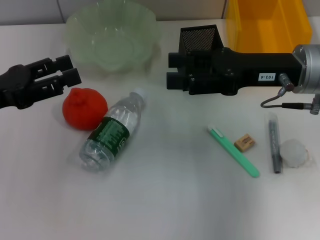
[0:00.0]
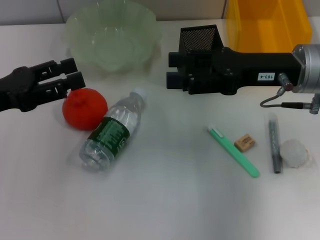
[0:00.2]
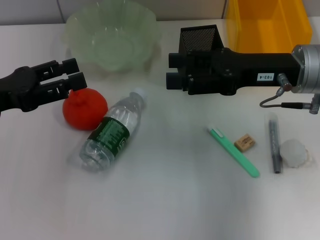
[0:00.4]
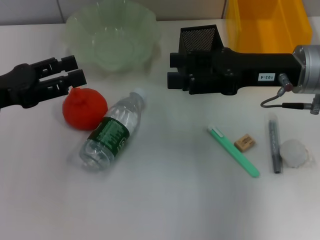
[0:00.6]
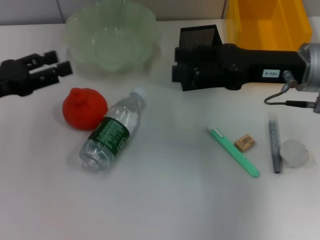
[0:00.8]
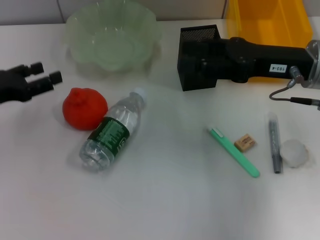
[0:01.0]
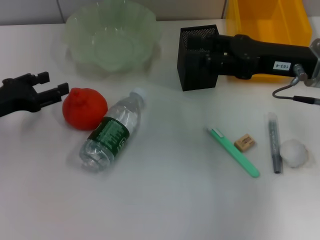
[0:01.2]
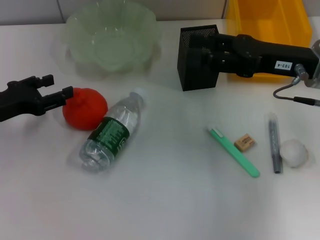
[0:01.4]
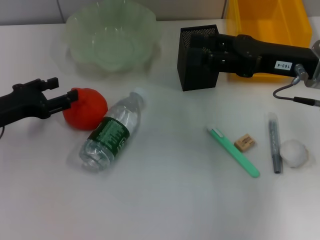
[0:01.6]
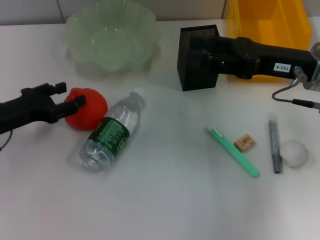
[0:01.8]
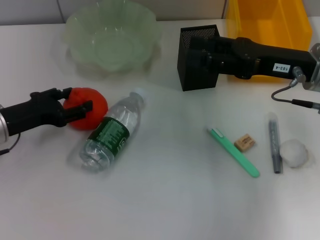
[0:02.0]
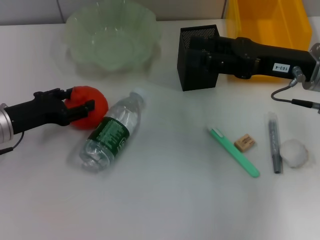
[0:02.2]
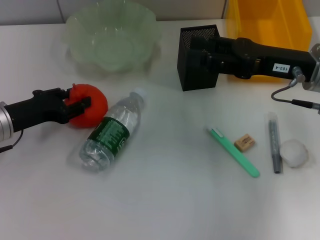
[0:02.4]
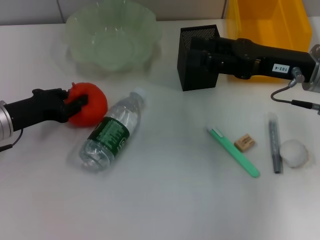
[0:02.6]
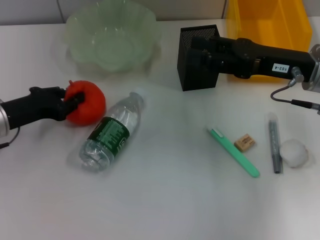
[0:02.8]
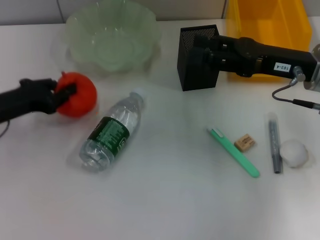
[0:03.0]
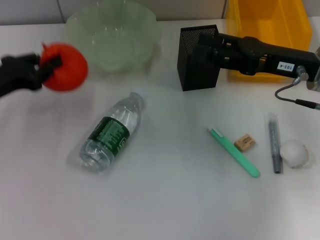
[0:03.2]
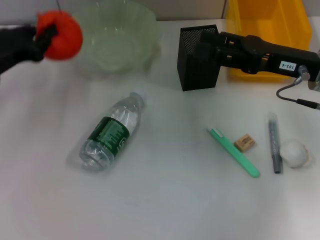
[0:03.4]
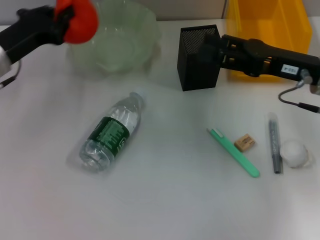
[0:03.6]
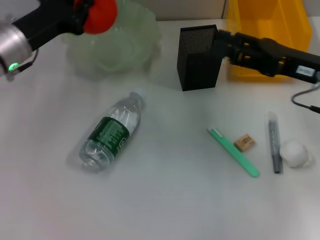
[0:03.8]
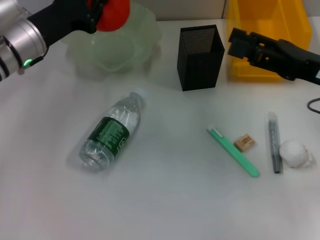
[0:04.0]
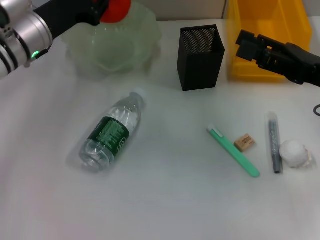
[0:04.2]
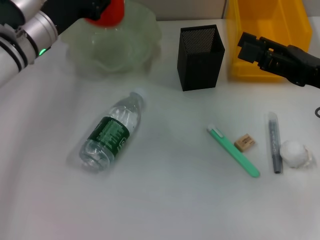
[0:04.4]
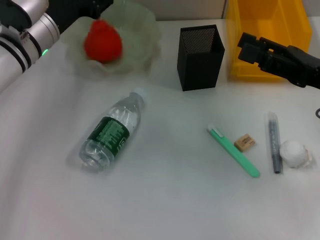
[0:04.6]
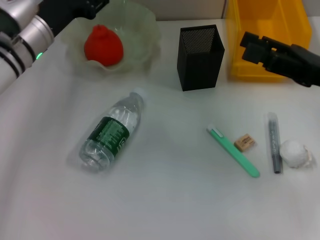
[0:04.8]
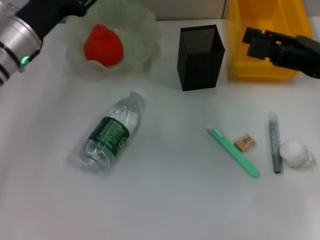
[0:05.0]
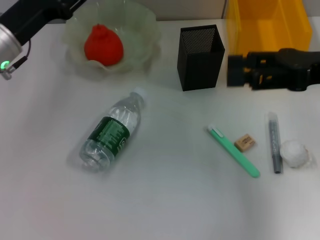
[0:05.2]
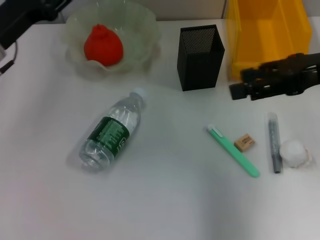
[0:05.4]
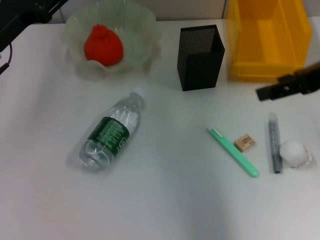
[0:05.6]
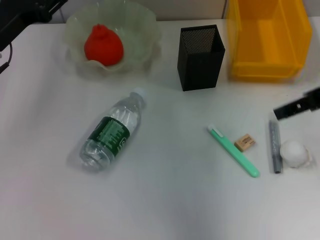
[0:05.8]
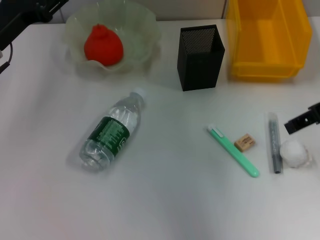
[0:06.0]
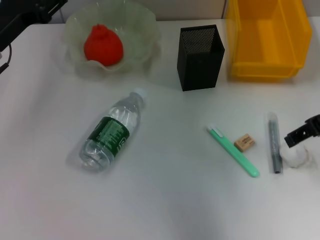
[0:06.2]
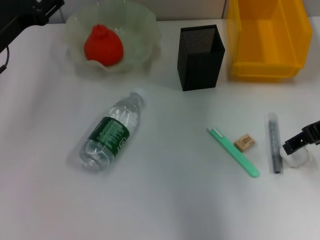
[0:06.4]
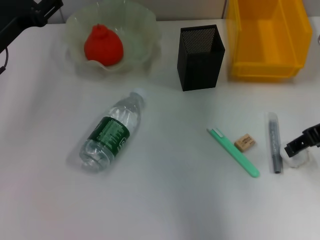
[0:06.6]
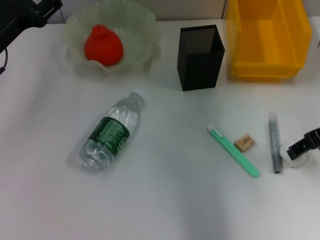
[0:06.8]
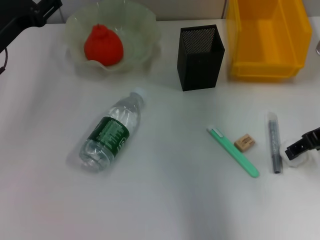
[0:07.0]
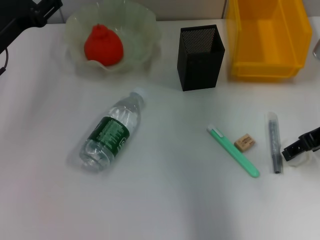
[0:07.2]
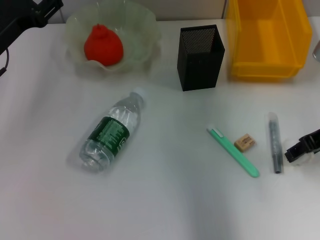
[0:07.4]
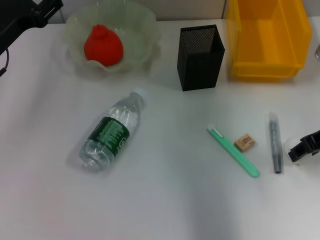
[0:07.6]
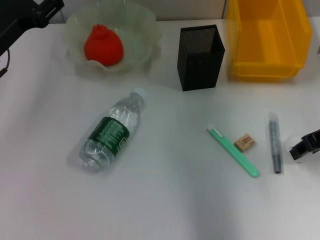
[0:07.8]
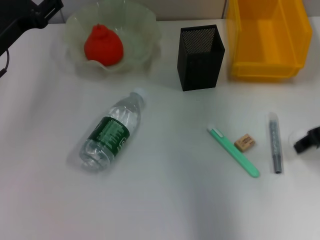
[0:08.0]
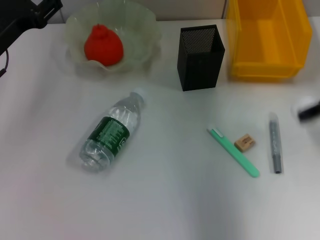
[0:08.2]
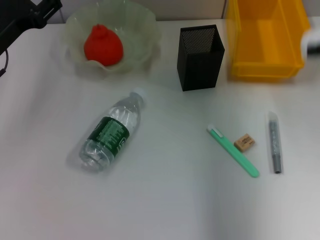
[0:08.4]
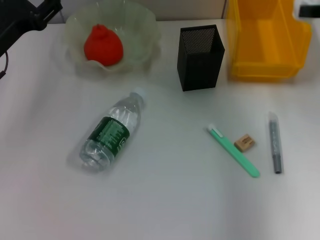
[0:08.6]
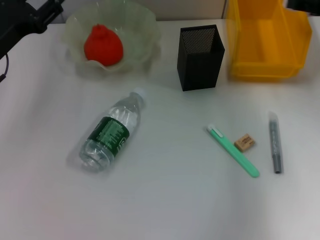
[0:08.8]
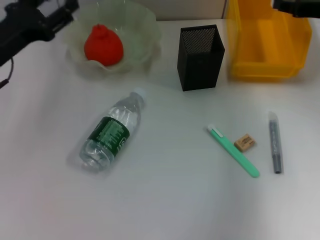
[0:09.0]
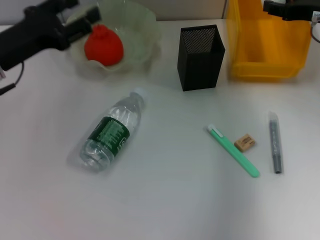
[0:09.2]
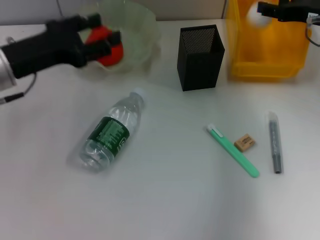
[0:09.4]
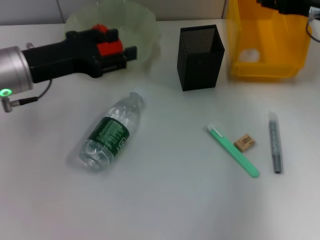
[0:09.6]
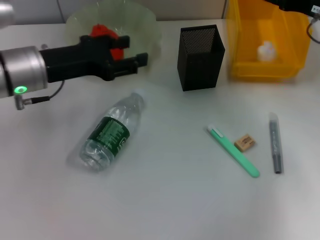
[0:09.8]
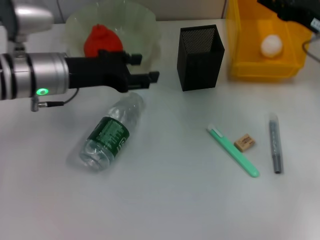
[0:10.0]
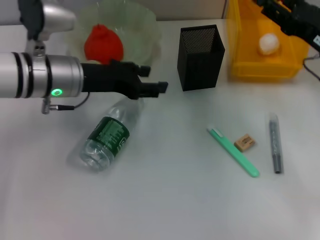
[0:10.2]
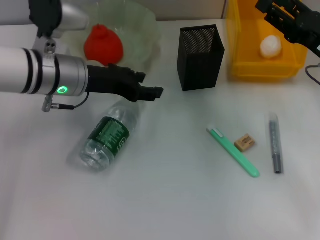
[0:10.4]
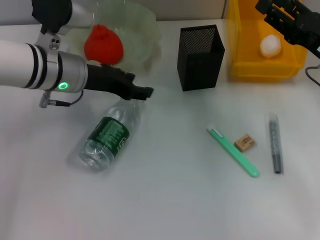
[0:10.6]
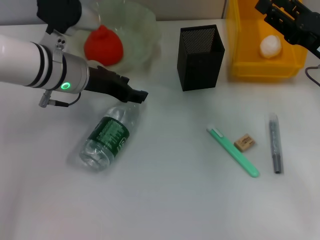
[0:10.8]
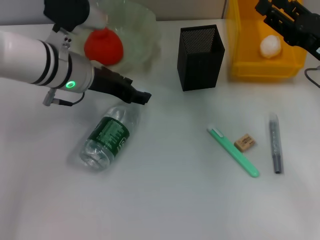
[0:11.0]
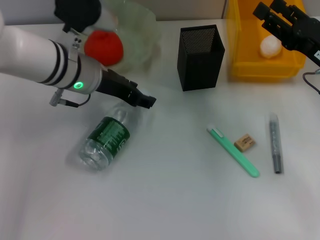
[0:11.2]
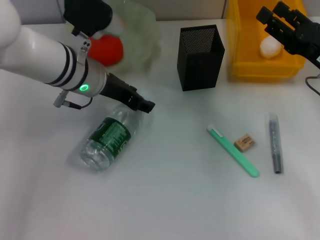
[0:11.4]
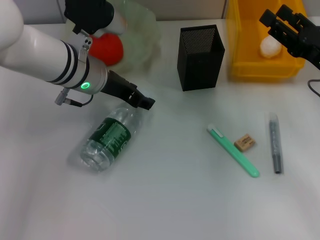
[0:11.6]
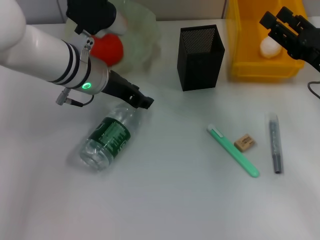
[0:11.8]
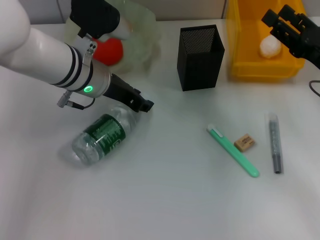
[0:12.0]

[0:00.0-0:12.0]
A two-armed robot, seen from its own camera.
Step, 0:00.0 to 0:02.6: Grab the orange with the left hand.
Step, 0:03.0 to 0:04.6: Place the orange into the fruit bowl with the left hand.
Step, 0:04.8 to 0:07.4: Grab the paper ball with the right hand.
Step, 0:07.8 to 0:09.4: Place the paper ball into the trash can with the right hand.
0:00.0 to 0:01.6: The left gripper moves downward, roughly 5 cm.
0:01.6 to 0:03.0: The left gripper closes its fingers.
0:03.0 to 0:04.4: The left gripper heads forward and to the right, covering some 15 cm, and opens; the right gripper shifts by roughly 5 cm.
0:04.4 to 0:06.0: The right gripper travels upward by approximately 10 cm; the left gripper shifts roughly 10 cm to the left and backward, and opens its fingers.
0:06.0 to 0:07.6: The right gripper moves downward, approximately 10 cm.
0:07.6 to 0:09.0: The right gripper goes roughly 10 cm forward.
0:09.0 to 0:10.4: The right gripper travels backward and downward by roughly 10 cm, and opens up. The left gripper goes approximately 10 cm to the right.
0:10.4 to 0:12.0: There are only small adjustments of the grippers.

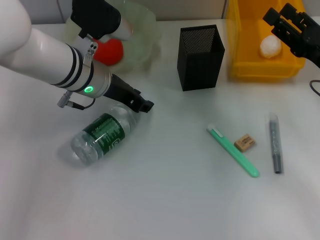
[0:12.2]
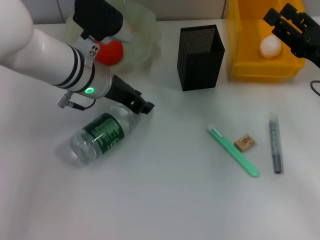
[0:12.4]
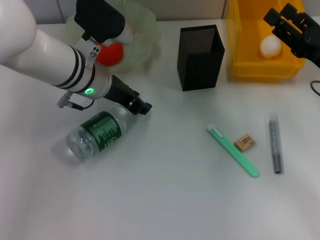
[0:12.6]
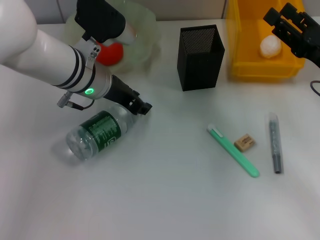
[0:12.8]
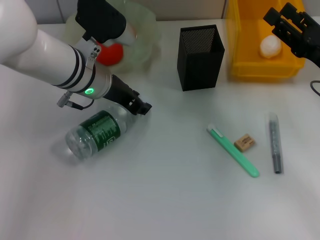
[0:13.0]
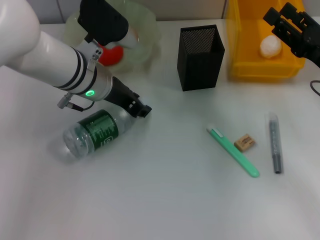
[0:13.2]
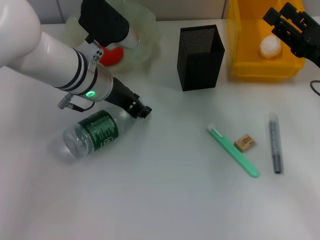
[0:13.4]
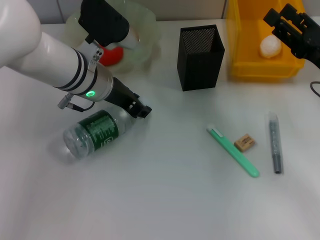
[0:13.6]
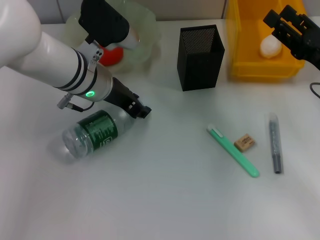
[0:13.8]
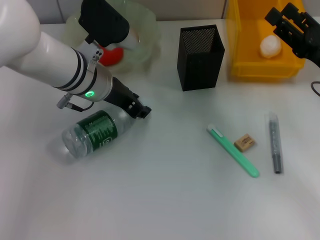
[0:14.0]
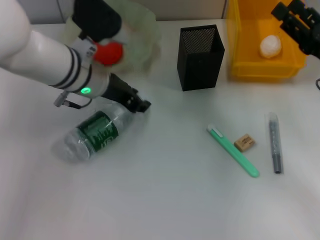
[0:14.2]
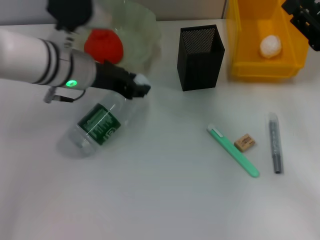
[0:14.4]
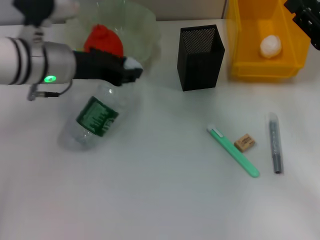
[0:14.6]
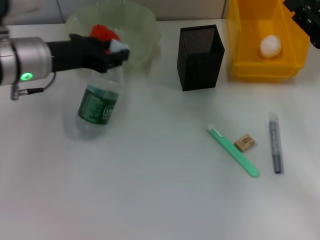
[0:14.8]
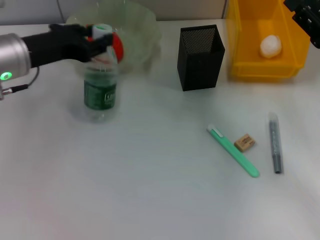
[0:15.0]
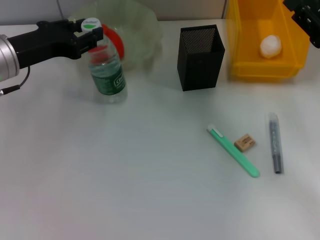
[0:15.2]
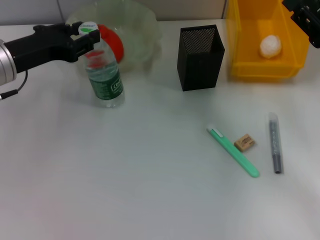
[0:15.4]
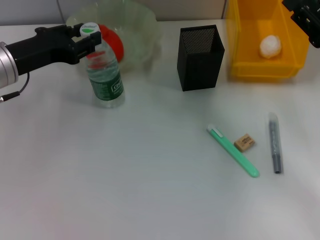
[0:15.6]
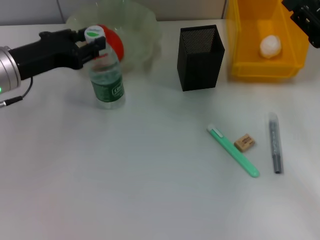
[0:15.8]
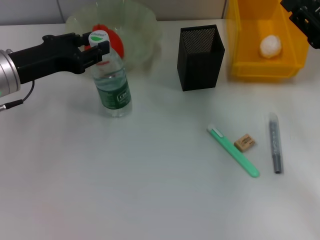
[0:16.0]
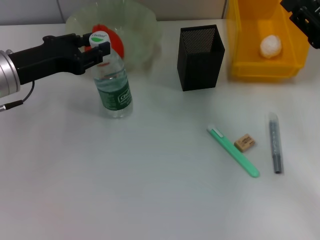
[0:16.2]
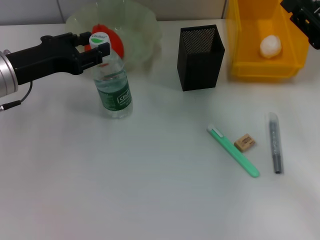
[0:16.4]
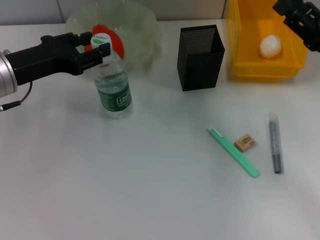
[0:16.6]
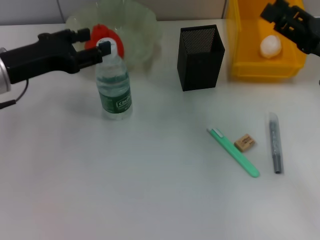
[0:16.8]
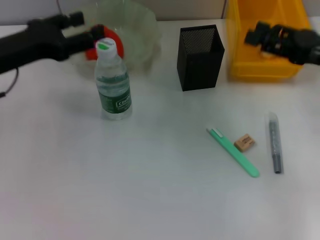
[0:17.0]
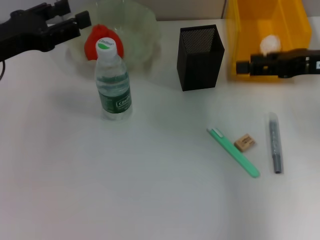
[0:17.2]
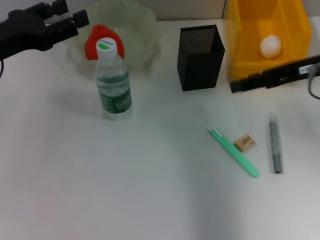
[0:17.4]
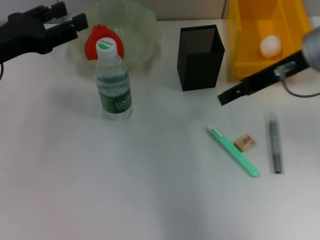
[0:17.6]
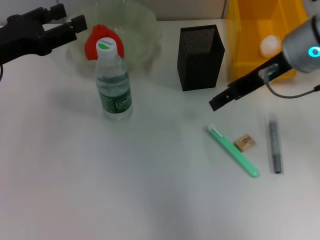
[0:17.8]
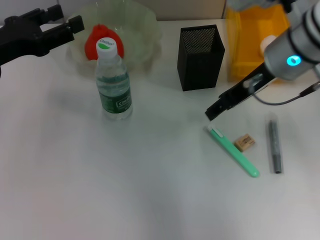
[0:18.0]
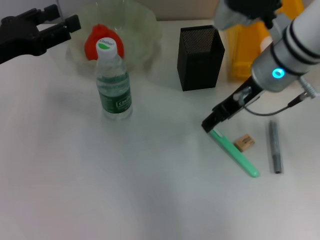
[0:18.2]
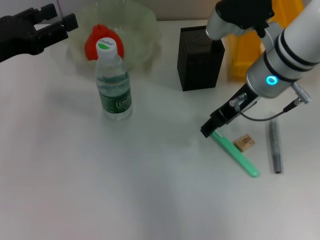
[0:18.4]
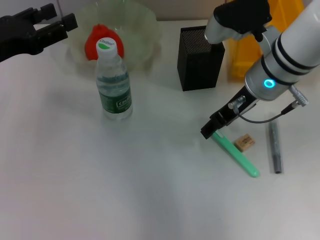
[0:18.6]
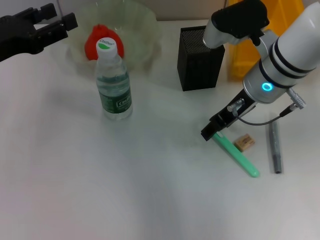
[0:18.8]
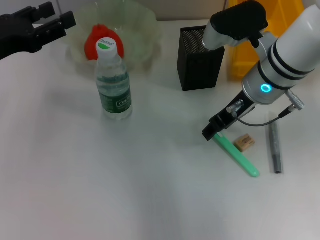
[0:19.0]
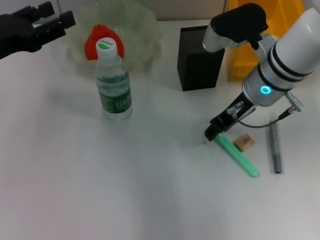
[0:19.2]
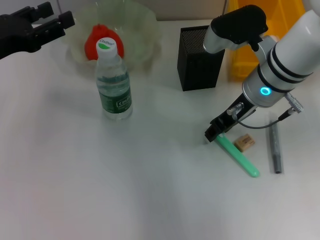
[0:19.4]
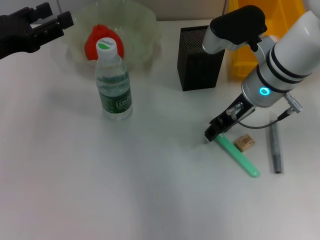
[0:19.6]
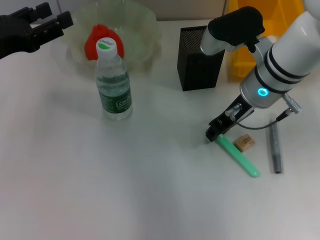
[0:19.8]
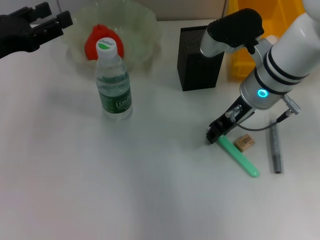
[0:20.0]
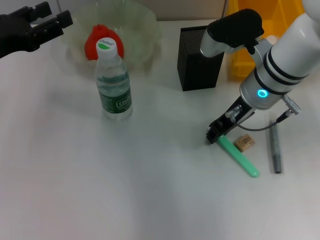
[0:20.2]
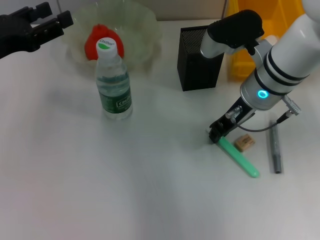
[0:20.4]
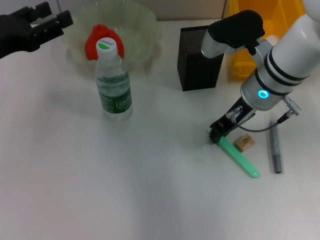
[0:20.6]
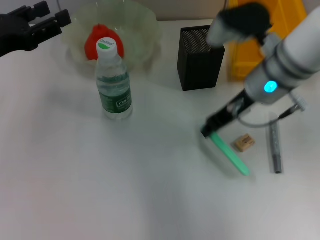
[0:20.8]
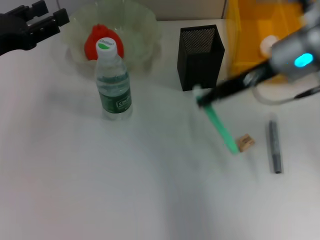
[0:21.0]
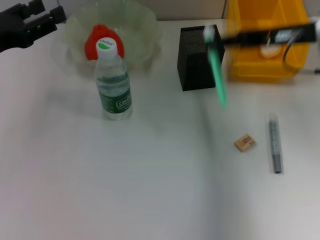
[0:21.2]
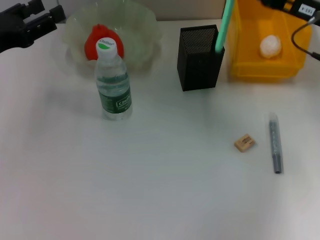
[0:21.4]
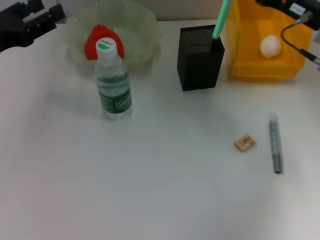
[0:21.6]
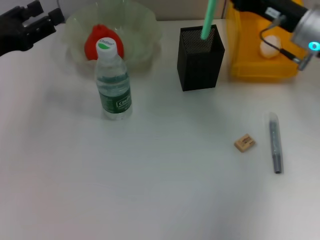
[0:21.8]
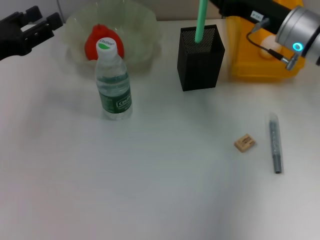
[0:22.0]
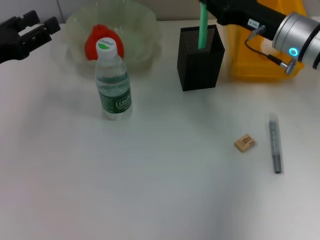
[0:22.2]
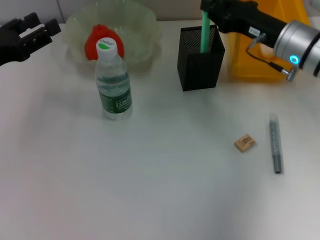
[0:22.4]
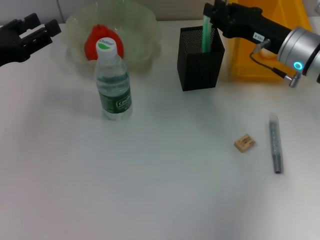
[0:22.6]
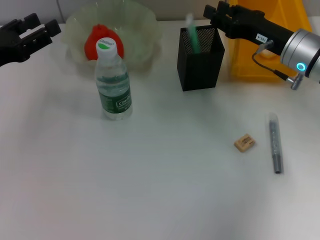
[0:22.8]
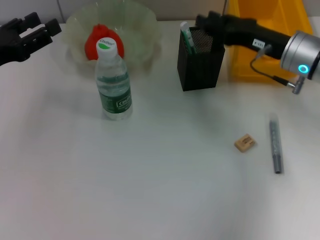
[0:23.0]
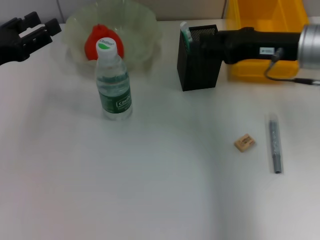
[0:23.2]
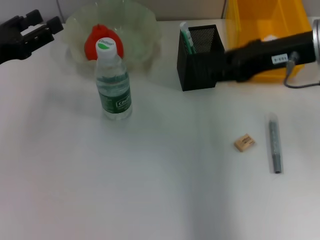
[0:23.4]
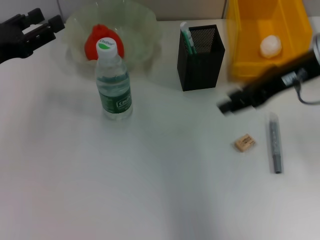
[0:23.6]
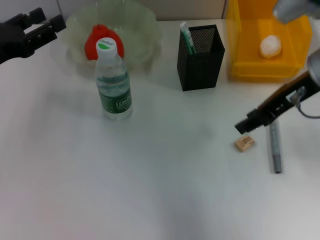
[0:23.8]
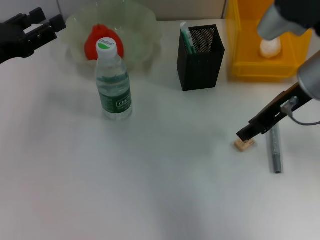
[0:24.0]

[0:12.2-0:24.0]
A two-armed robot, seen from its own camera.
Step, 0:14.2 to 0:16.6: Place the water bottle on the table with the left hand.
Step, 0:16.8 to 0:20.6: Grab the blue utility knife with the right hand.
Step, 0:20.8 to 0:22.6: Place the blue utility knife into the pen holder with the right hand.
0:12.2 to 0:13.6: There are only small adjustments of the grippers.
0:13.6 to 0:15.2: The left gripper moves to the left, approximately 10 cm.
0:15.2 to 0:16.6: The grippers stay close to where they were, moving slightly.
0:16.6 to 0:18.2: The right gripper shifts some 15 cm to the left, forward and upward.
0:18.2 to 0:19.6: The grippers make only small movements.
0:19.6 to 0:21.0: The right gripper goes approximately 5 cm upward, and closes its fingers.
0:21.0 to 0:22.6: The right gripper goes roughly 10 cm downward.
0:22.6 to 0:24.0: The right gripper is displaced upward by approximately 10 cm.
